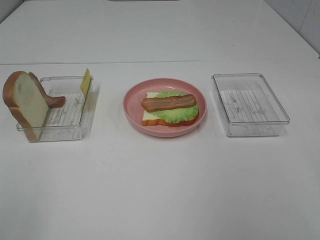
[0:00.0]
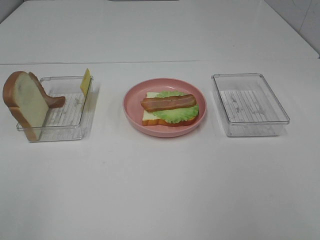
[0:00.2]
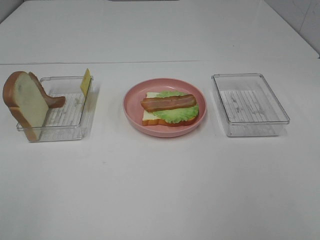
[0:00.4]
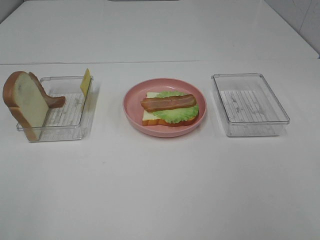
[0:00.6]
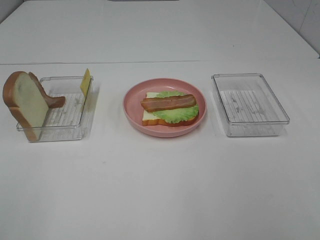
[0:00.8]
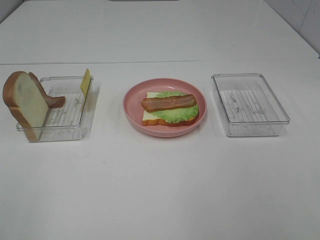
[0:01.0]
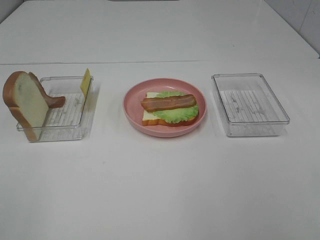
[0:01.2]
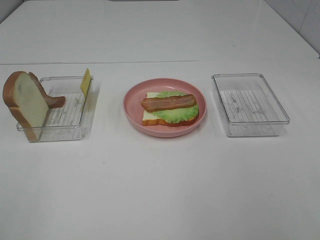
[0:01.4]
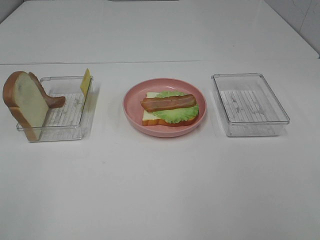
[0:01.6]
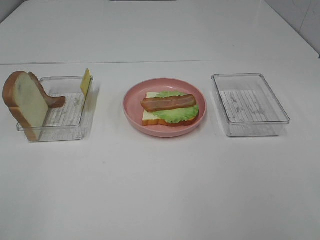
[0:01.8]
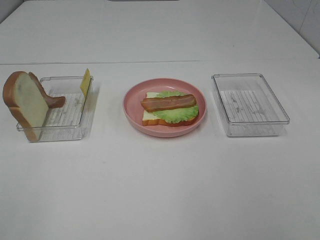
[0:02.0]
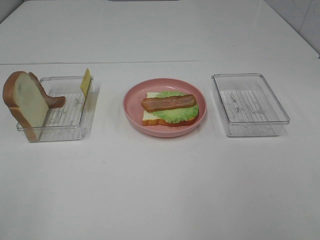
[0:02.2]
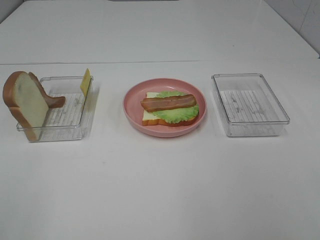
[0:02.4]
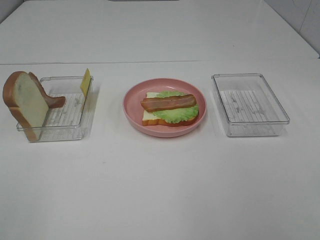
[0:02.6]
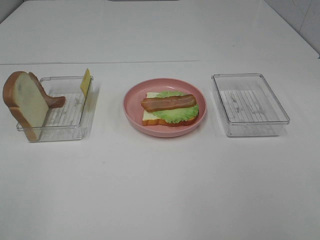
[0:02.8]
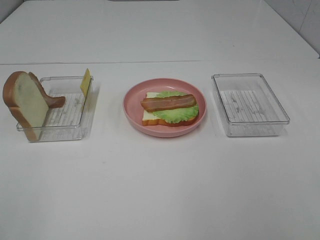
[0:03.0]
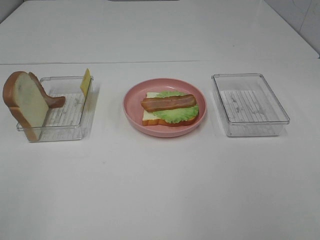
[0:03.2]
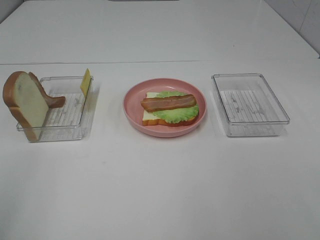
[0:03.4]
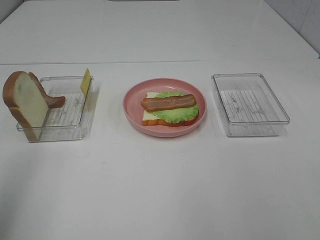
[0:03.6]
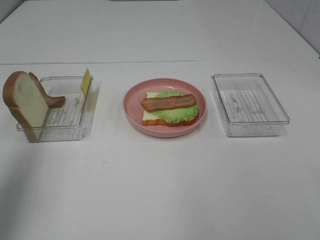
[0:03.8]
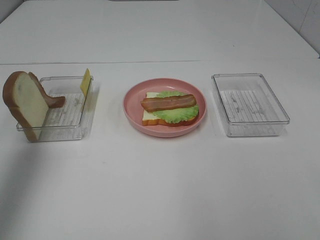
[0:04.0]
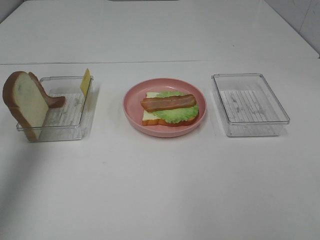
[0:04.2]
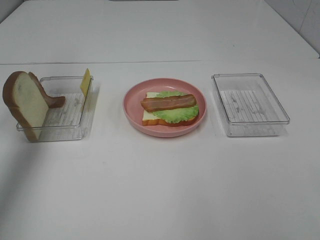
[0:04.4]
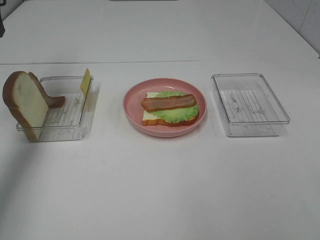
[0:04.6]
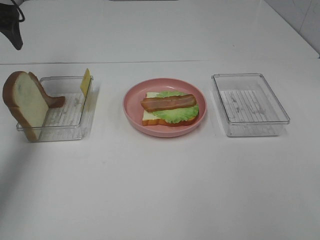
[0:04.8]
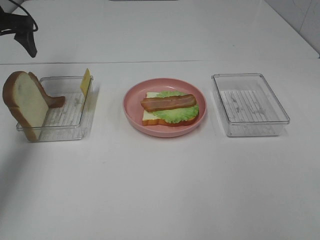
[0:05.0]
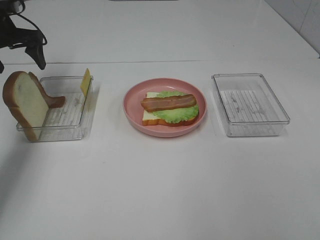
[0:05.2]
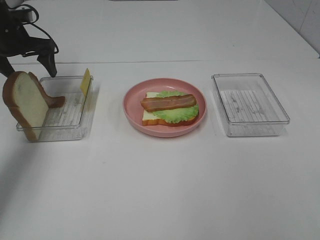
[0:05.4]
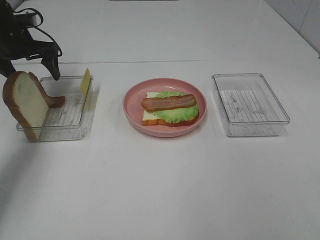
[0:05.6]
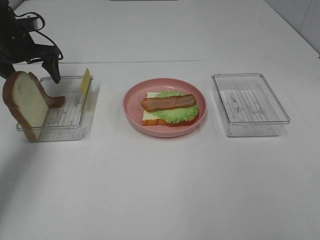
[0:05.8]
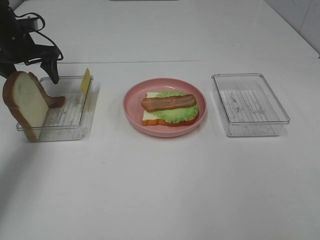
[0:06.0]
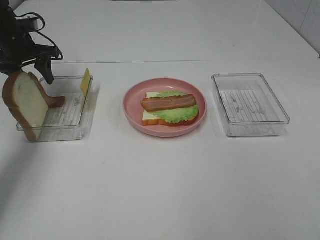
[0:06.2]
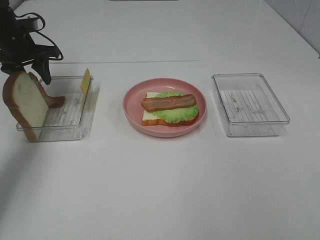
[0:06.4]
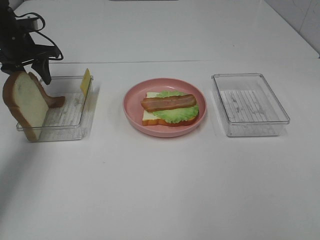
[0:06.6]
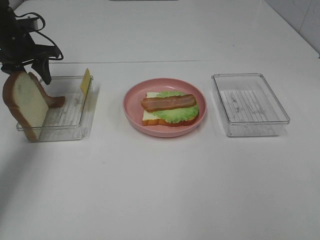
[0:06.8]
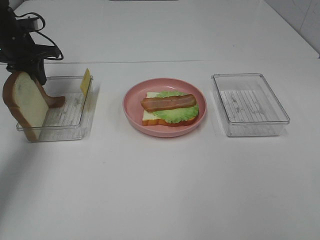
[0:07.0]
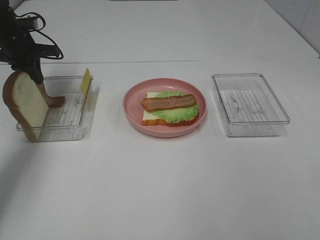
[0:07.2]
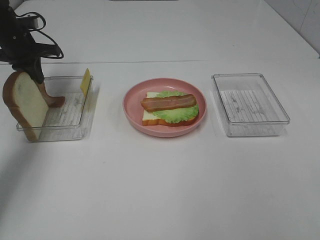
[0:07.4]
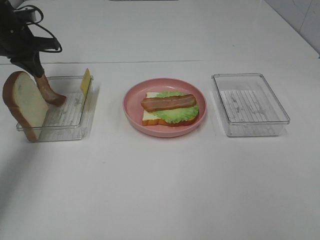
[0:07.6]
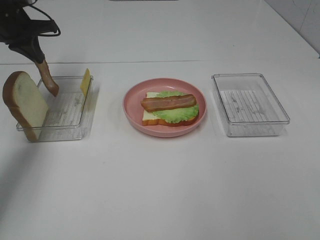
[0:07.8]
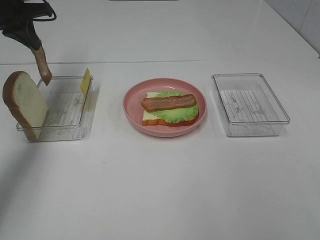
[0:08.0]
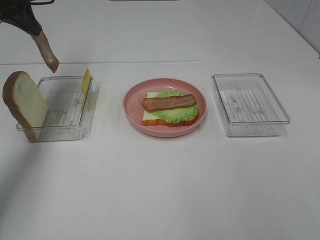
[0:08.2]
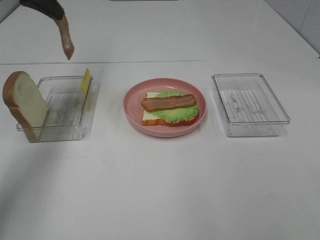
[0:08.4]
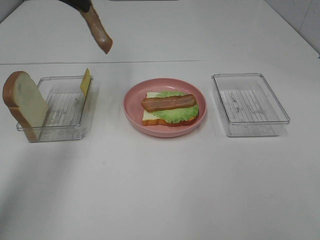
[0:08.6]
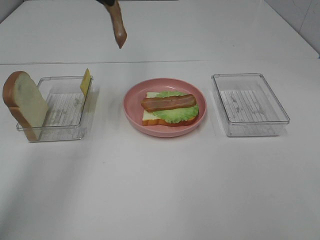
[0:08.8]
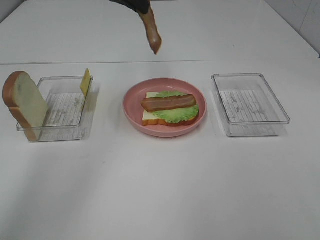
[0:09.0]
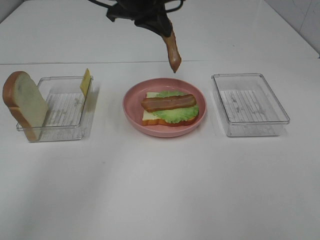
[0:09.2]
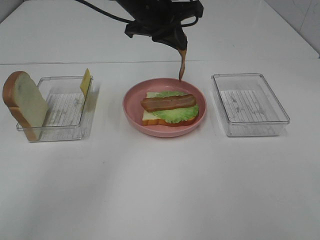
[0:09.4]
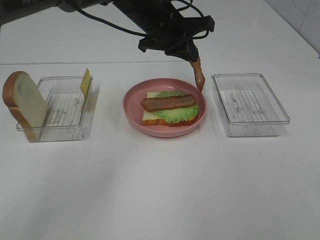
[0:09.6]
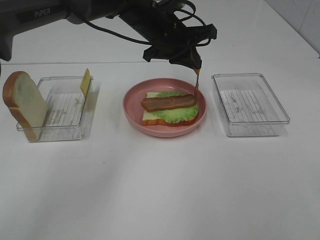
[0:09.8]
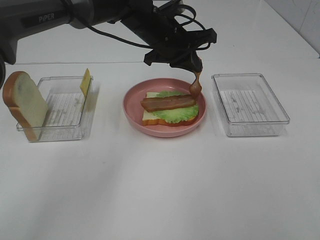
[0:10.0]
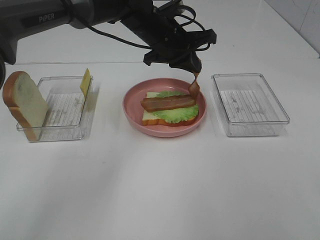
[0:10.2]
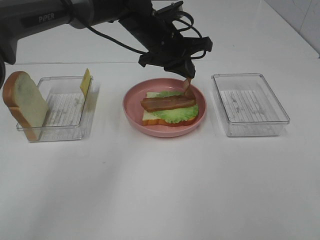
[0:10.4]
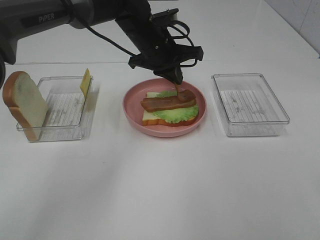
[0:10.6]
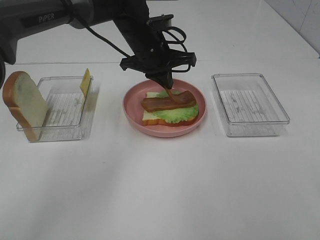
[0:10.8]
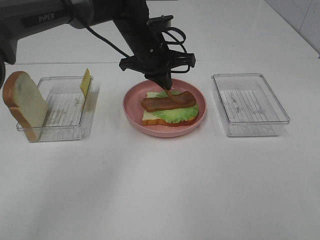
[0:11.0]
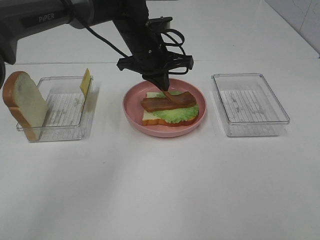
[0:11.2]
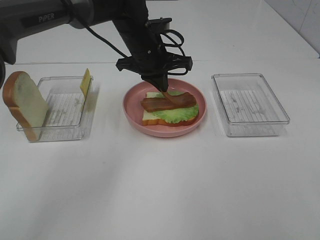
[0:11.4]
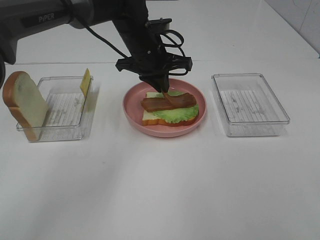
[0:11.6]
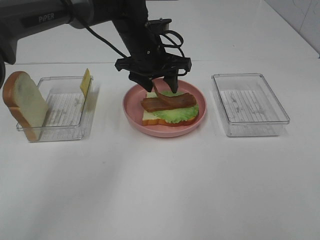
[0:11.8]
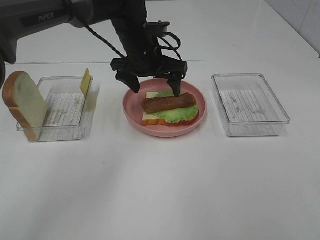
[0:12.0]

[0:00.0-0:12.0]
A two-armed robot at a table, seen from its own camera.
Task of the whole recording: Make sandwiches.
Step, 0:00.0 to 0:07.6: Left hand:grab the bacon.
Step, 0:07.8 to 0:12.0: Left hand:place bacon on bacon.
0:01.6 to 0:03.0: The two grippers keep their place.
0:03.0 to 0:04.4: The left gripper heads forward, covering approximately 40 cm.
0:04.4 to 0:06.0: The left gripper heads downward and forward, covering some 20 cm.
0:06.0 to 0:07.6: The left gripper closes up.
0:07.6 to 0:09.0: The left gripper shifts roughly 25 cm to the right and upward.
0:09.0 to 0:10.4: The left gripper moves downward and to the right, roughly 15 cm.
0:10.4 to 0:12.0: The left gripper opens.

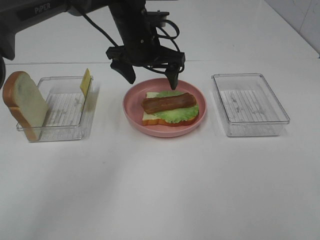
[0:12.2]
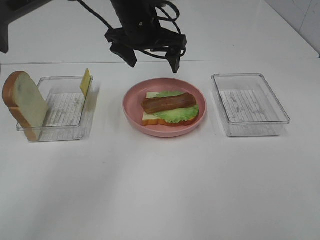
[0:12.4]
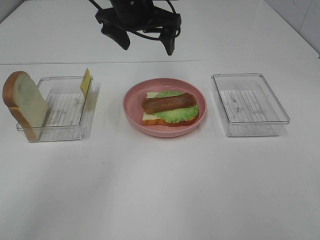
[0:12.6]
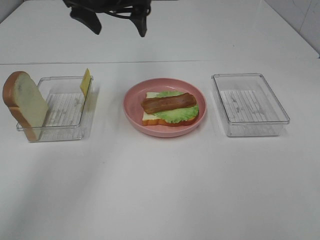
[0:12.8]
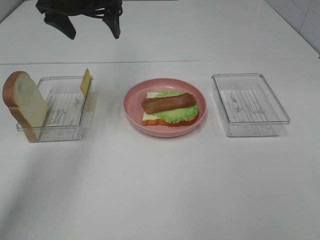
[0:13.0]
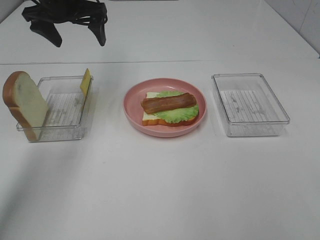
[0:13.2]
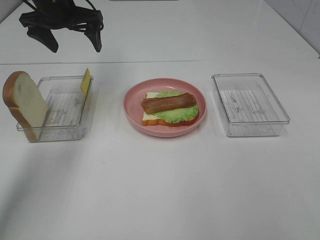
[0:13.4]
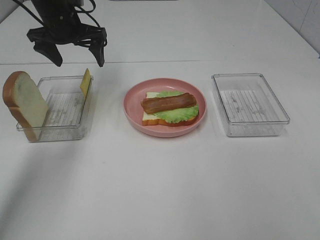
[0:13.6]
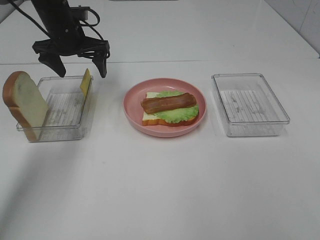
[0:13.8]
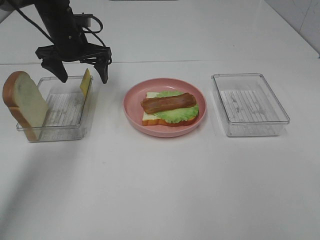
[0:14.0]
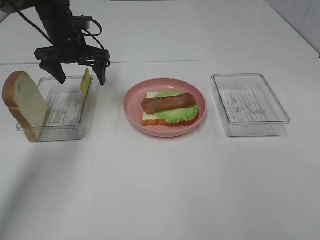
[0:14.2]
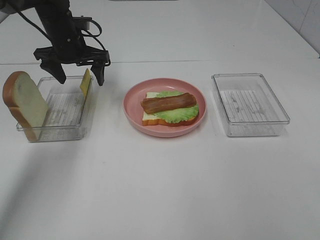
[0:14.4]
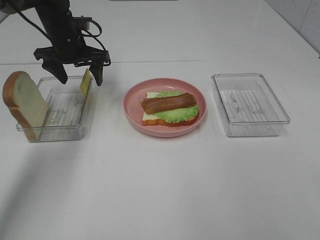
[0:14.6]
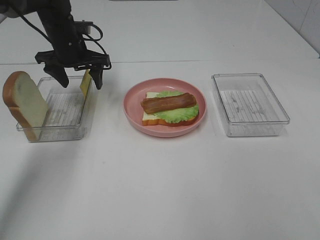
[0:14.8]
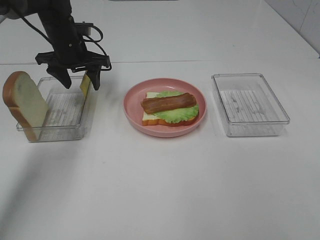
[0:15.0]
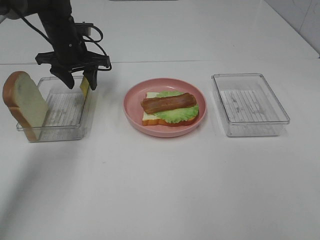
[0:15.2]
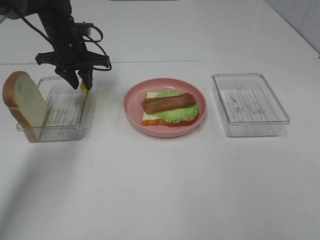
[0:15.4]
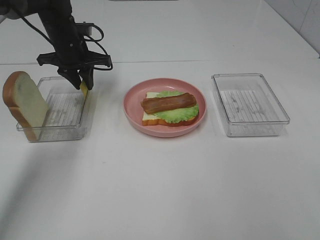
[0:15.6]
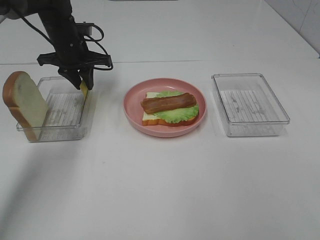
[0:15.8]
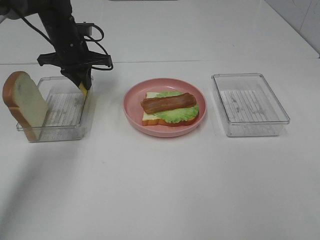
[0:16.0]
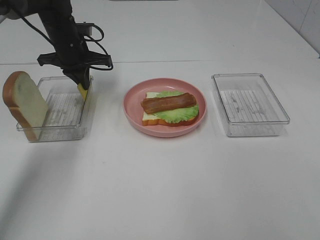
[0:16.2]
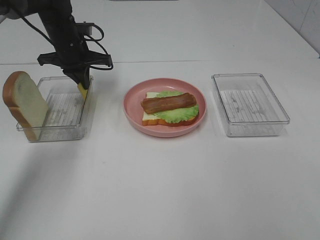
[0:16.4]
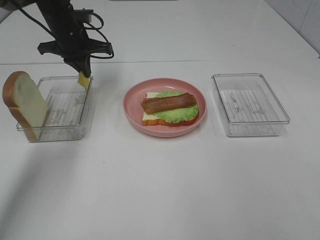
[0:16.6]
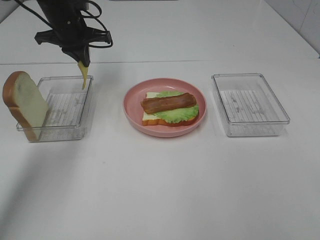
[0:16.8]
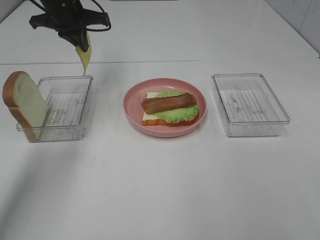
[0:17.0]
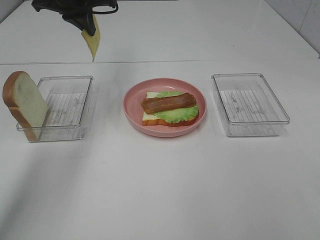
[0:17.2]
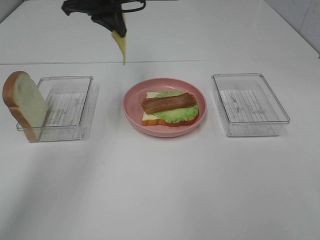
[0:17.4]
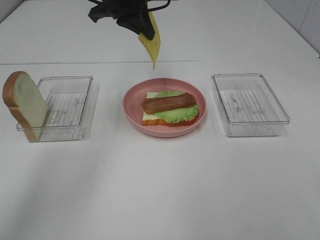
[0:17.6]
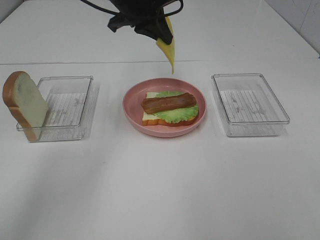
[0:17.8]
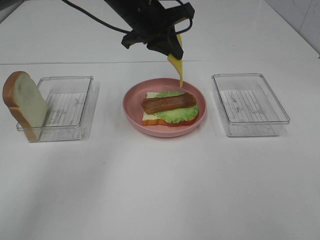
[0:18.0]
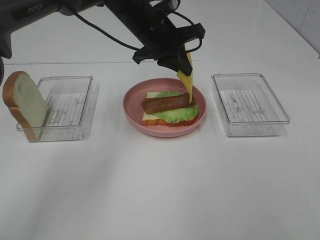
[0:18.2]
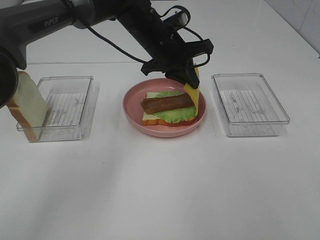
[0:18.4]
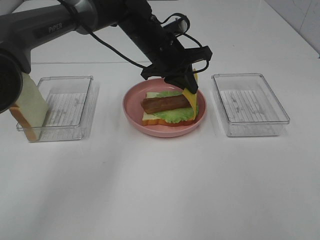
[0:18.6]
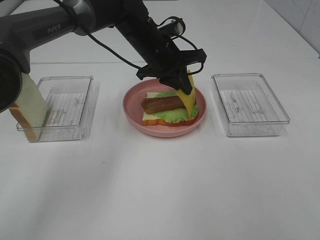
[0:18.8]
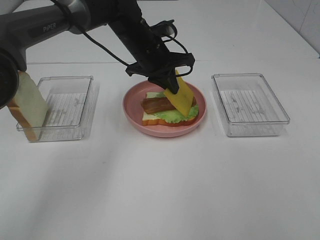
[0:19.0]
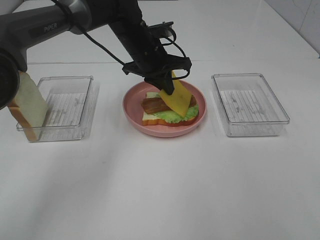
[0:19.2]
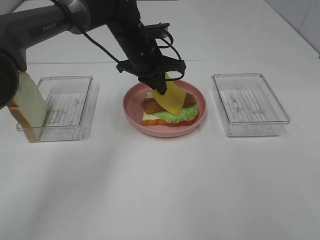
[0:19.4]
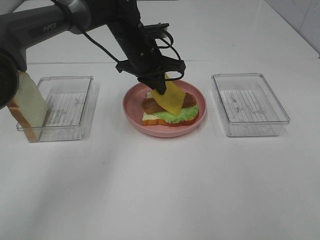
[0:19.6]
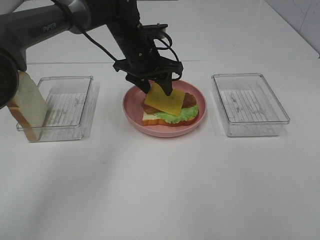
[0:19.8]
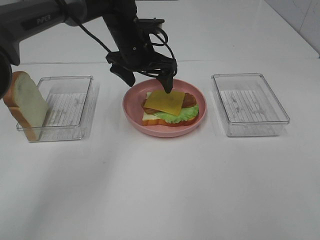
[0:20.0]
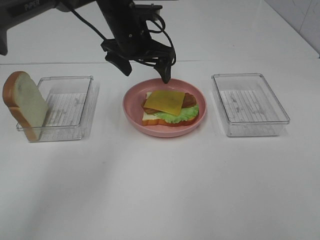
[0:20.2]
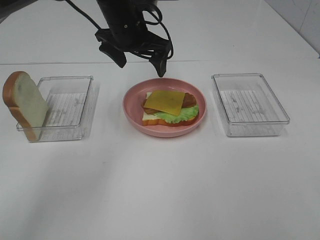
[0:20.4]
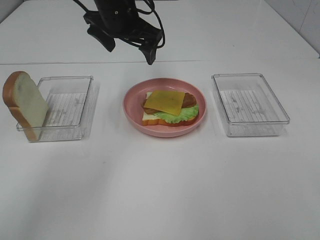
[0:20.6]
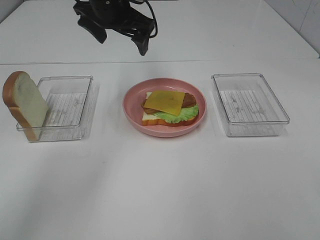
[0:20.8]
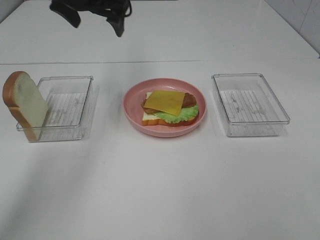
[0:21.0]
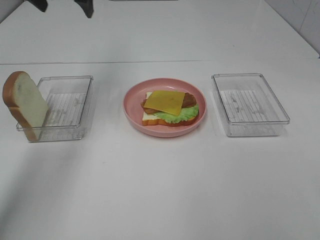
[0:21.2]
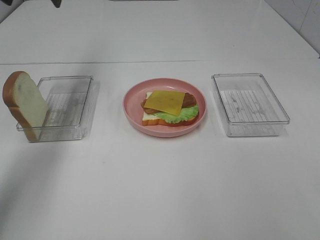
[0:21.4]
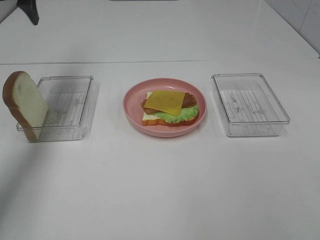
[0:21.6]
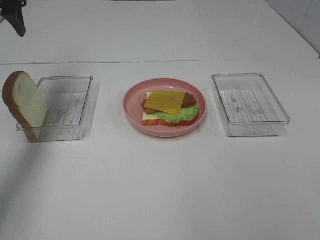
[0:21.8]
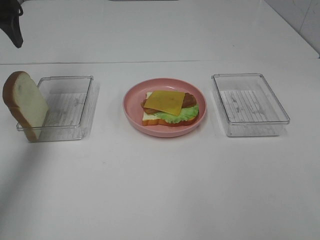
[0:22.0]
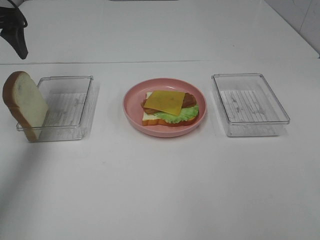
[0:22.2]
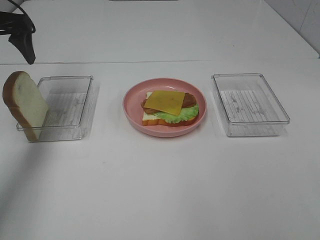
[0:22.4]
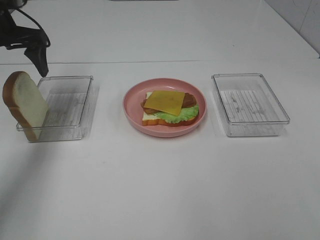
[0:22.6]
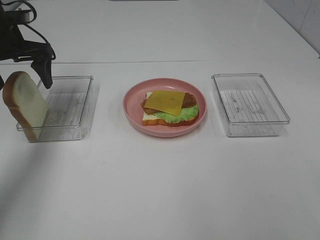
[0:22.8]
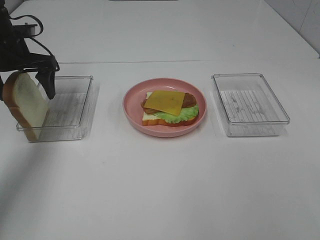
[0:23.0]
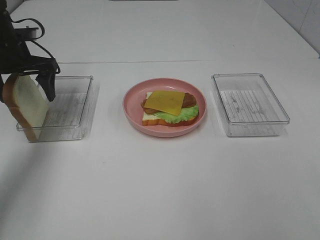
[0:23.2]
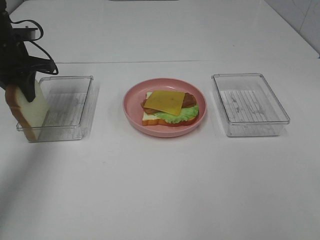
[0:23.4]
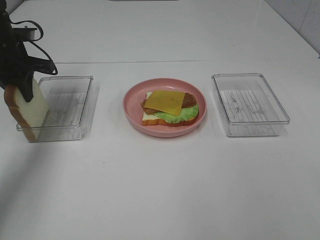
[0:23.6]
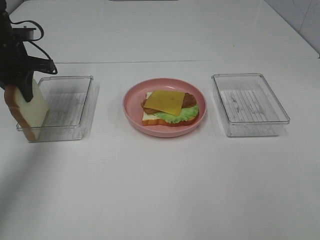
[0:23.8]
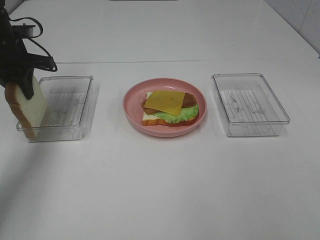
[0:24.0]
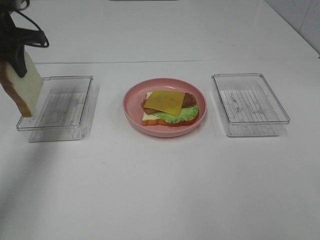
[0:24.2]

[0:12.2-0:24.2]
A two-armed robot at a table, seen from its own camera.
Task of the whole recording: Make sandwiches.
Step, 0:12.2 to 0:16.4: Left hand:grab the cheese slice.
Step, 0:16.6 to 0:20.0: Left hand:place the cheese slice on top of the bacon.
Step, 0:20.2 to 0:23.8: Left hand:grab the bread slice.
0:12.2 to 0:13.8: The left gripper travels to the left by approximately 15 cm.
0:13.8 to 0:15.2: The left gripper closes.
0:15.2 to 0:16.6: The left gripper closes.
0:16.6 to 0:18.2: The left gripper heads to the right, covering roughly 15 cm.
0:18.2 to 0:19.8: The left gripper shifts by approximately 5 cm, and opens up.
0:19.8 to 0:21.2: The left gripper travels to the left and upward by about 25 cm, and opens.
0:21.2 to 0:22.6: The left gripper travels to the left, downward and backward by approximately 10 cm.
0:22.6 to 0:24.2: The left gripper closes its fingers.
